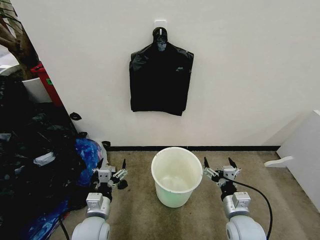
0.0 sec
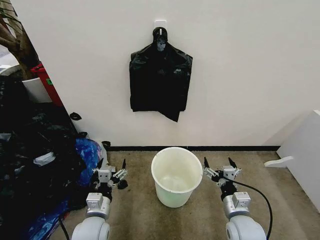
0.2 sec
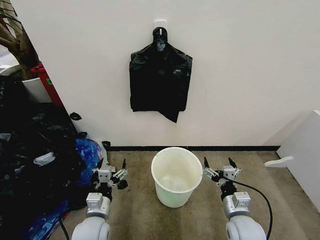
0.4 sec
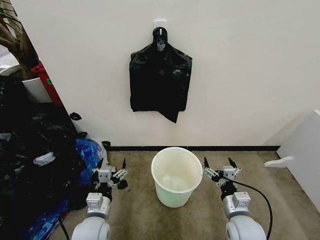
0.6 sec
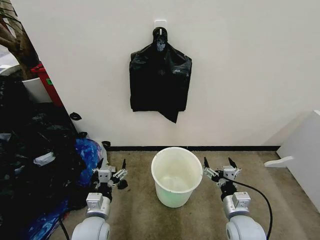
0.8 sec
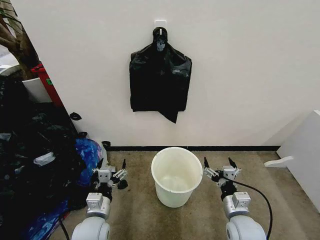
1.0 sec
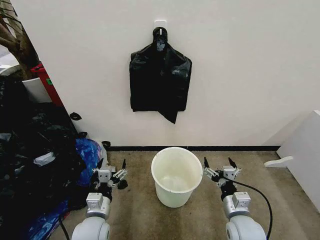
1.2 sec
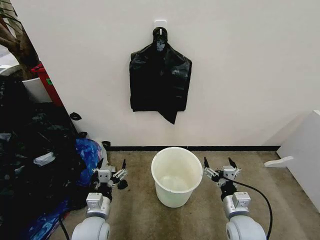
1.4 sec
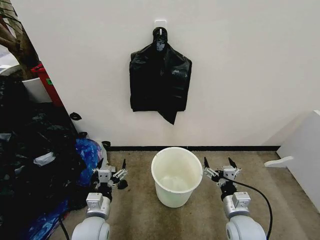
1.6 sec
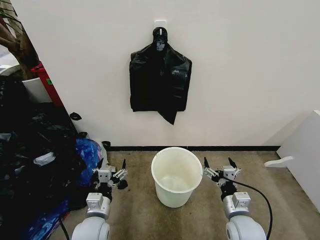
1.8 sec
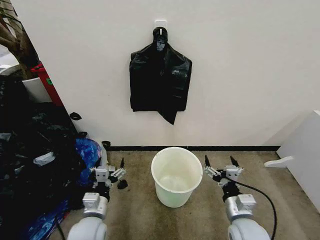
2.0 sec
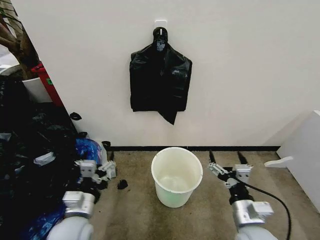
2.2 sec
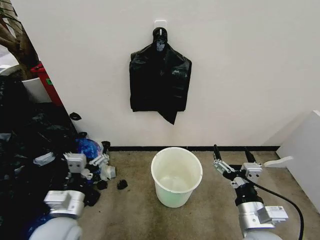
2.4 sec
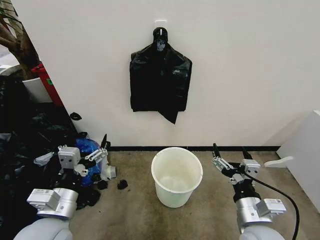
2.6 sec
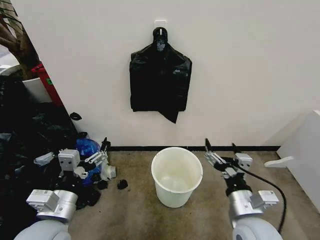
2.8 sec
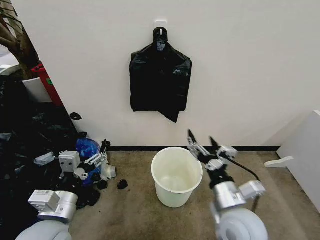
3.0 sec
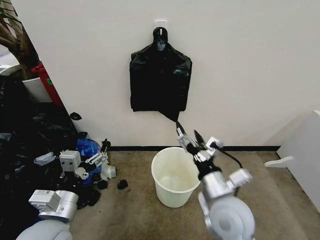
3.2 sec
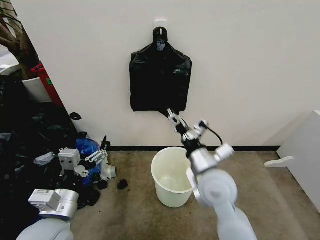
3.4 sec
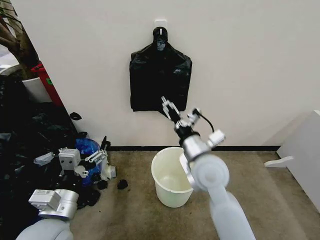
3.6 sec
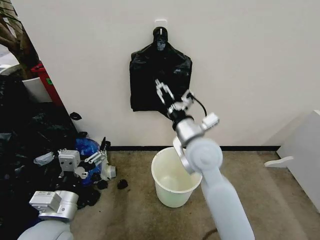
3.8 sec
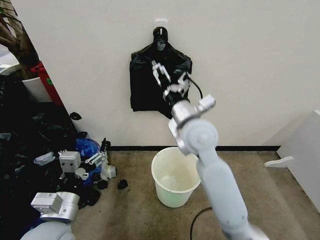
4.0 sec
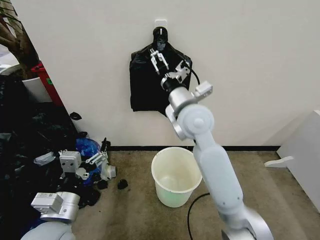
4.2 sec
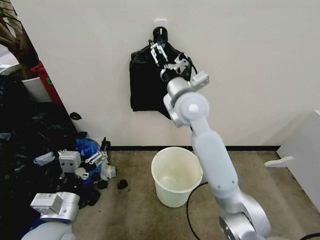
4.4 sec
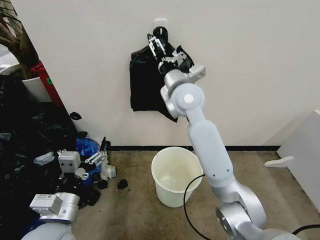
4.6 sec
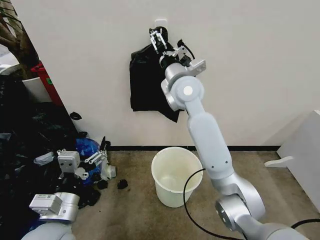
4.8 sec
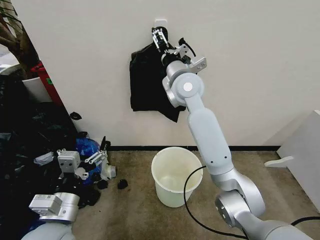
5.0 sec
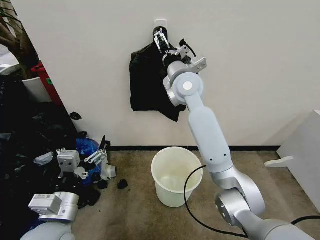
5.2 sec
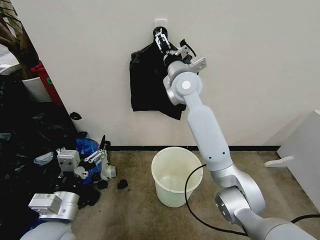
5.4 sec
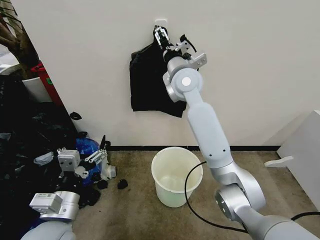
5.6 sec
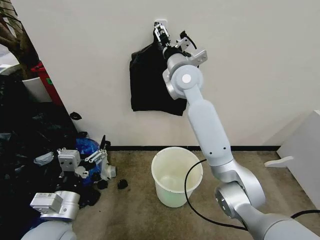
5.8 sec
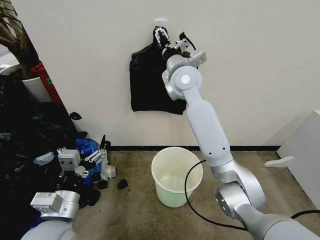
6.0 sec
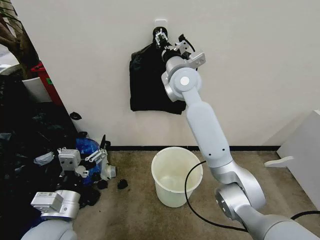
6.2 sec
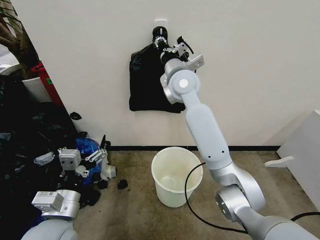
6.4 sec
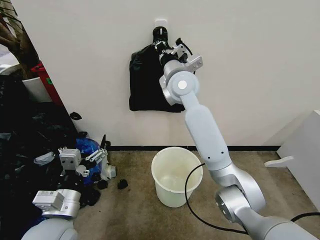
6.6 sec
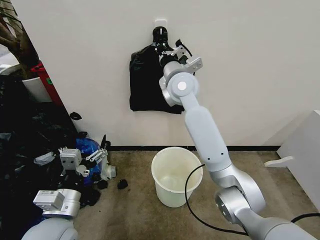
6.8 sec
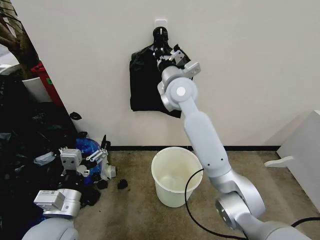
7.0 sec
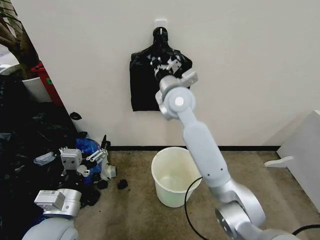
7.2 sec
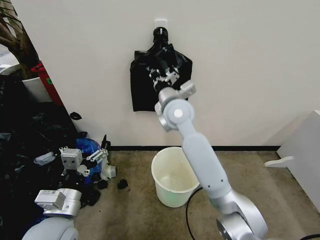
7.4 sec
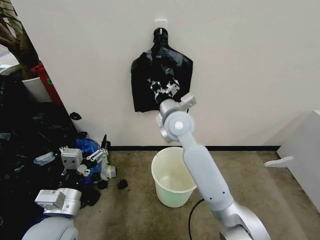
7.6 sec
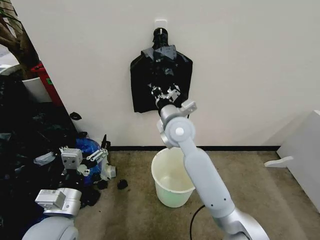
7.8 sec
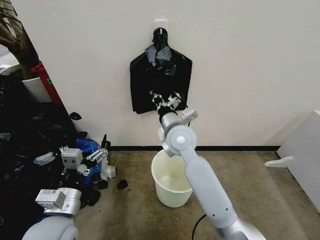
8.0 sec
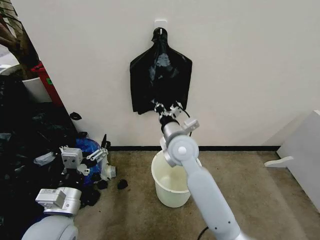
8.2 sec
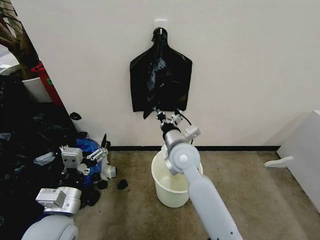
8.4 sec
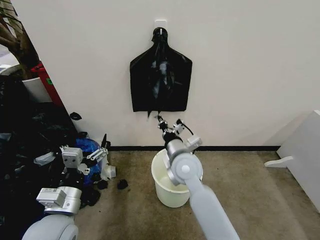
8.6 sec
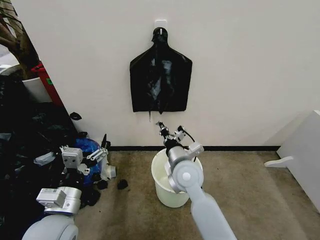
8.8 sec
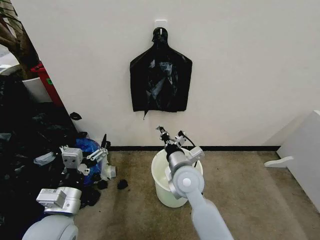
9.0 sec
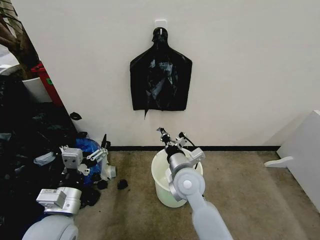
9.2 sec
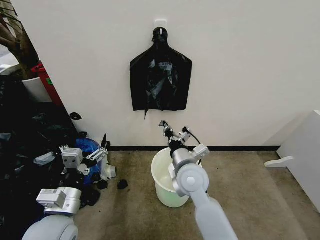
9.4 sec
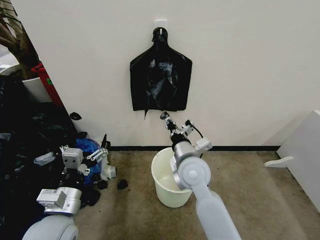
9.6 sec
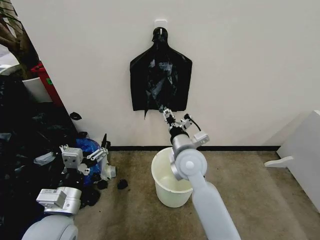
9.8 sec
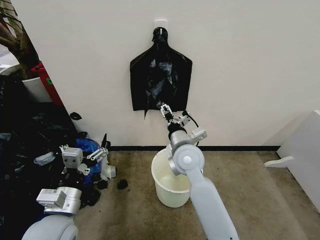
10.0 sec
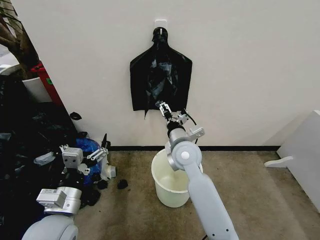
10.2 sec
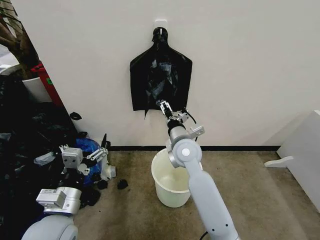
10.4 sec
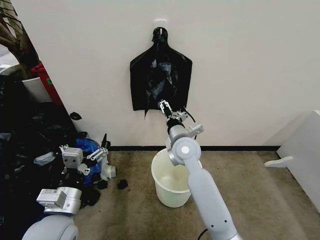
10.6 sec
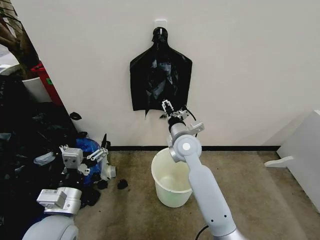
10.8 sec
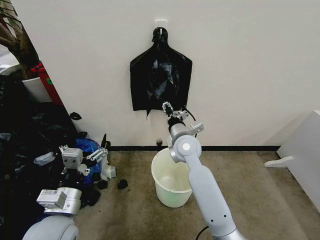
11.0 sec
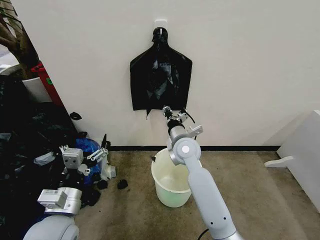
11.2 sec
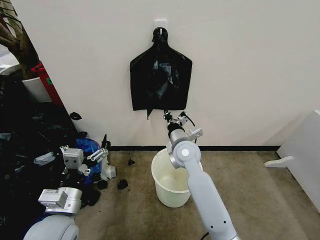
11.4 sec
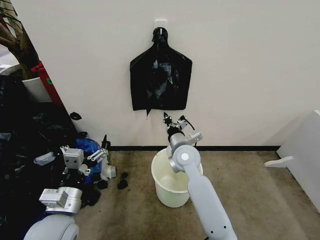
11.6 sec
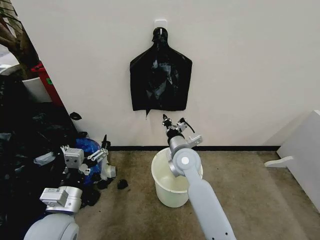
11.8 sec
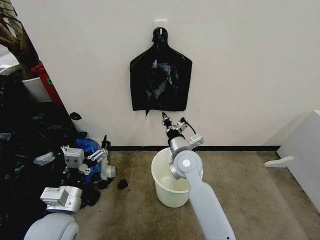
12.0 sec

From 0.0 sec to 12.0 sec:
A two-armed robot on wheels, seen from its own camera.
Task of the whole recording: Place the garbage bag over the trash bin.
From 1.6 sec to 3.0 sec: The right gripper goes about 15 cm upward and to the left; the left gripper is displaced upward by about 15 cm.
From 3.0 sec to 4.4 sec: The right gripper moves forward, upward and to the left, roughly 30 cm.
From 4.4 sec to 6.0 sec: The right gripper is displaced forward by approximately 10 cm.
From 6.0 sec to 7.6 sec: The right gripper moves downward and backward, some 15 cm, and closes its fingers.
From 7.6 sec to 9.0 sec: The right gripper is displaced downward and backward by approximately 15 cm.
From 9.0 sec to 10.4 sec: The right gripper heads forward, covering roughly 10 cm, and opens up.
From 10.4 sec to 12.0 sec: The right gripper closes up.

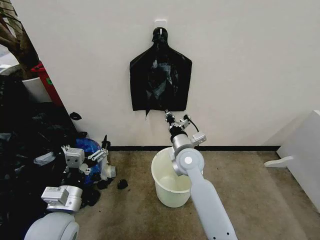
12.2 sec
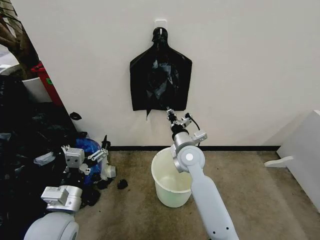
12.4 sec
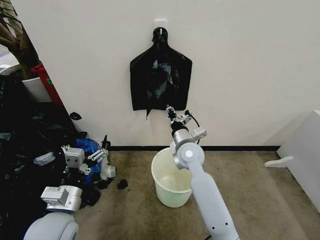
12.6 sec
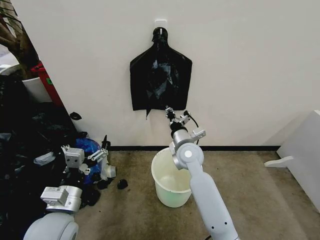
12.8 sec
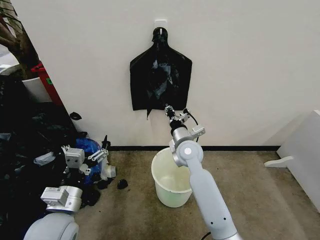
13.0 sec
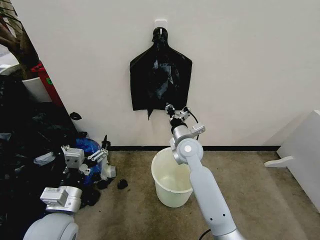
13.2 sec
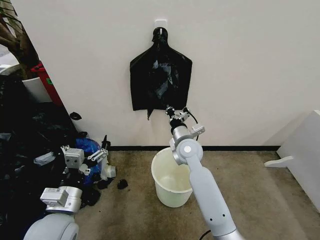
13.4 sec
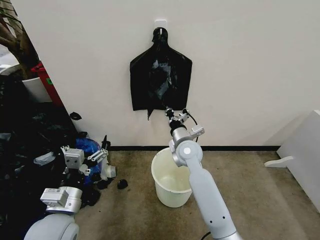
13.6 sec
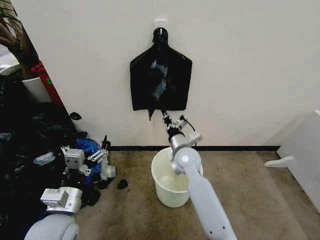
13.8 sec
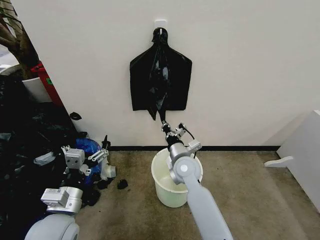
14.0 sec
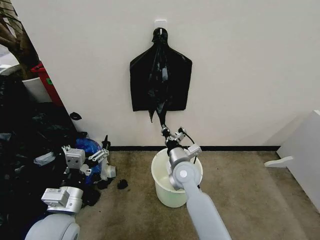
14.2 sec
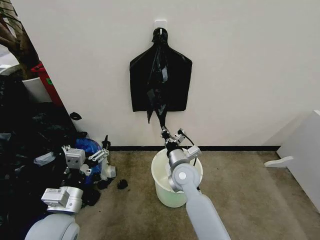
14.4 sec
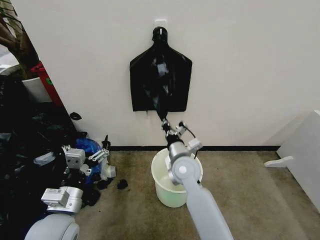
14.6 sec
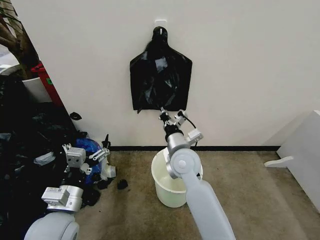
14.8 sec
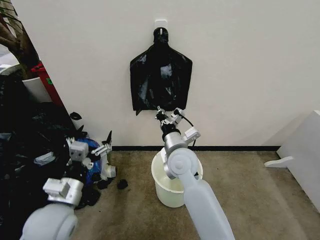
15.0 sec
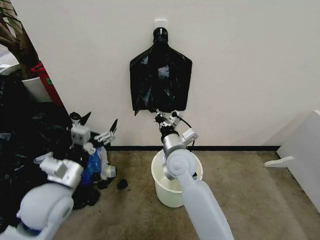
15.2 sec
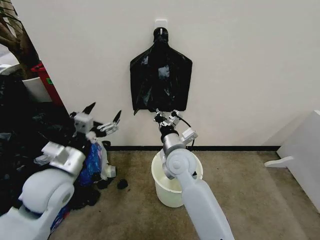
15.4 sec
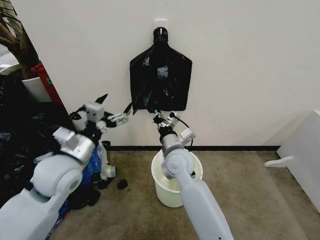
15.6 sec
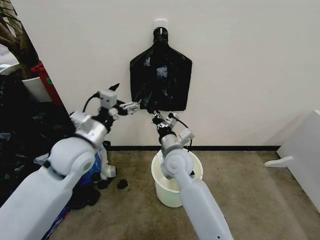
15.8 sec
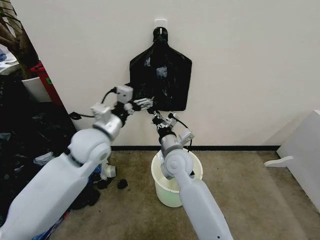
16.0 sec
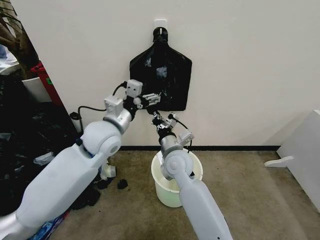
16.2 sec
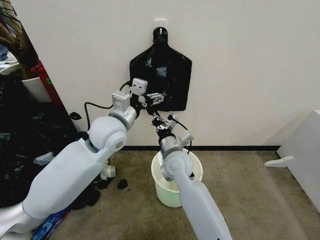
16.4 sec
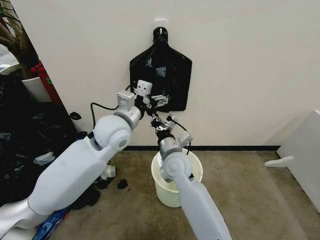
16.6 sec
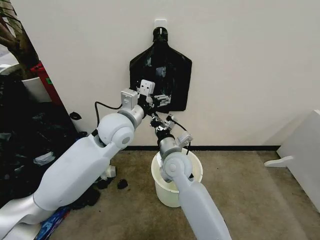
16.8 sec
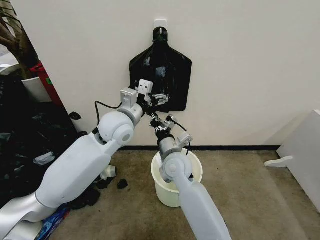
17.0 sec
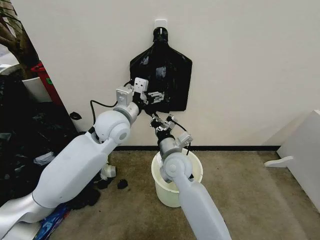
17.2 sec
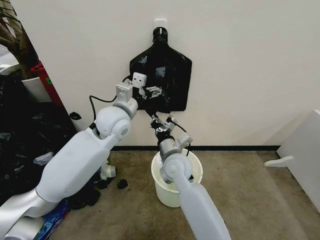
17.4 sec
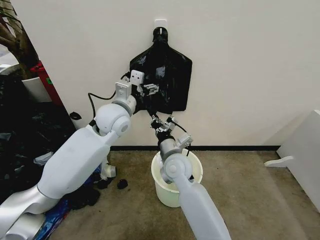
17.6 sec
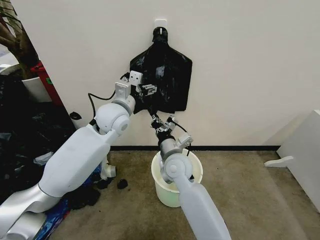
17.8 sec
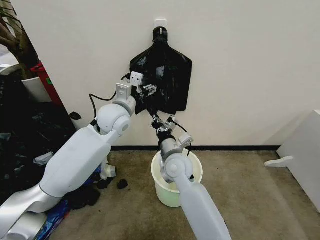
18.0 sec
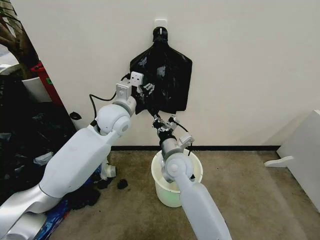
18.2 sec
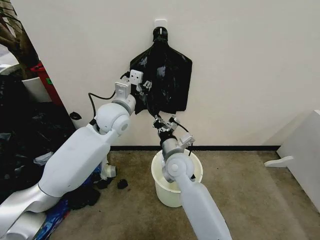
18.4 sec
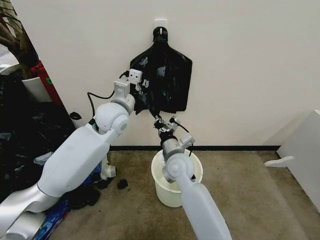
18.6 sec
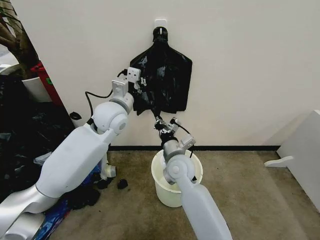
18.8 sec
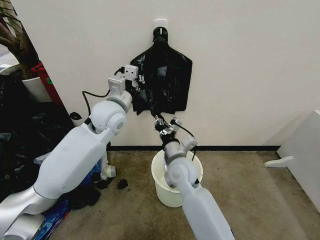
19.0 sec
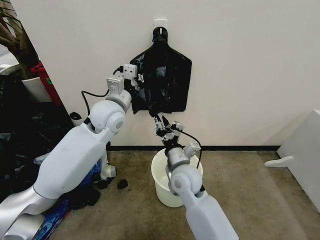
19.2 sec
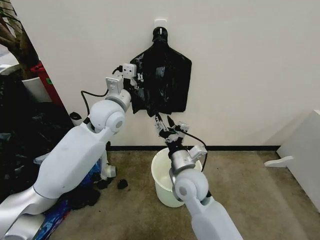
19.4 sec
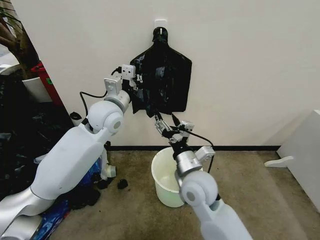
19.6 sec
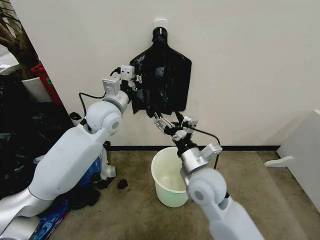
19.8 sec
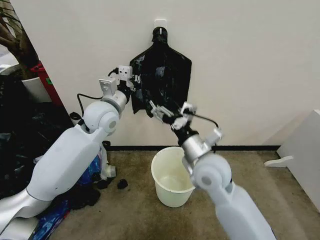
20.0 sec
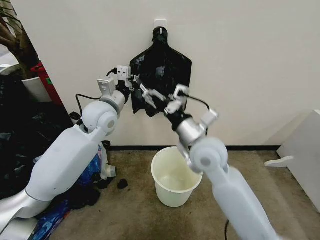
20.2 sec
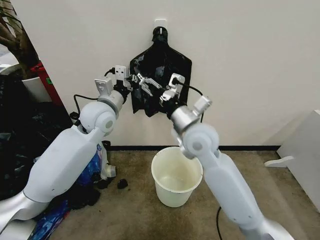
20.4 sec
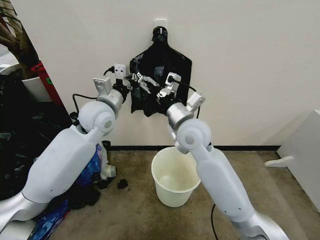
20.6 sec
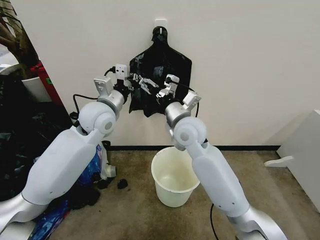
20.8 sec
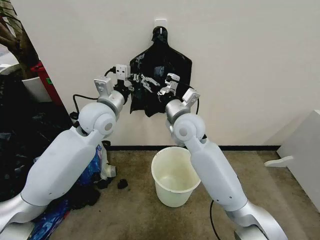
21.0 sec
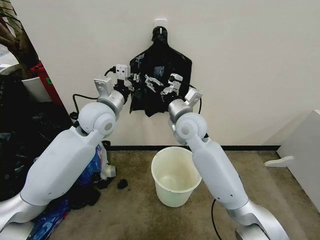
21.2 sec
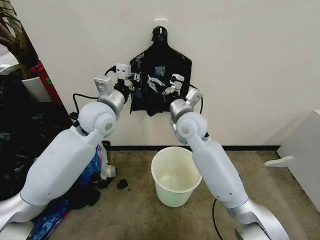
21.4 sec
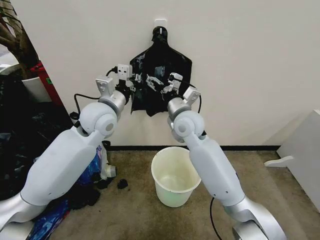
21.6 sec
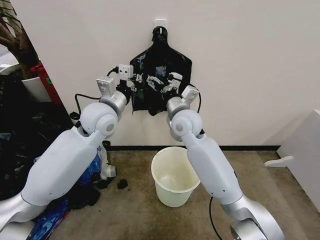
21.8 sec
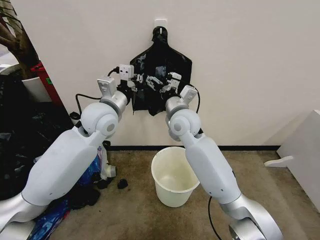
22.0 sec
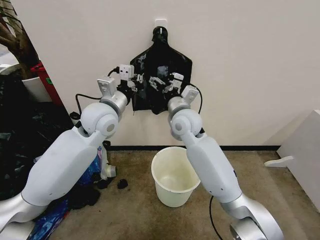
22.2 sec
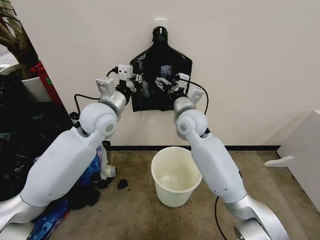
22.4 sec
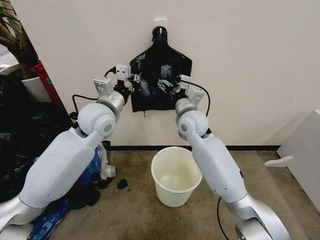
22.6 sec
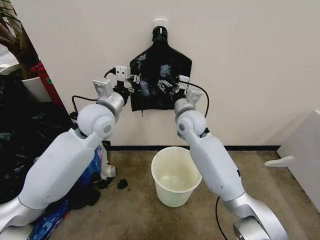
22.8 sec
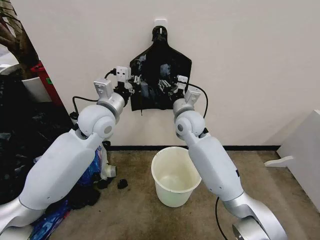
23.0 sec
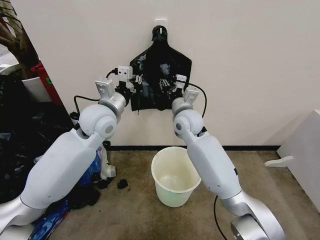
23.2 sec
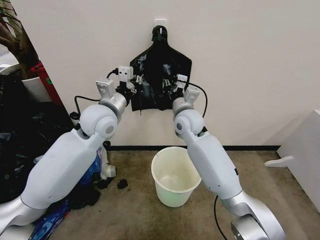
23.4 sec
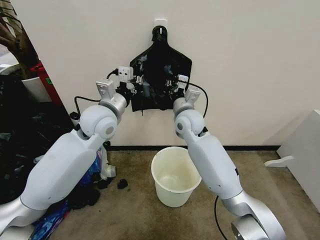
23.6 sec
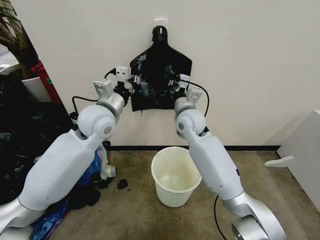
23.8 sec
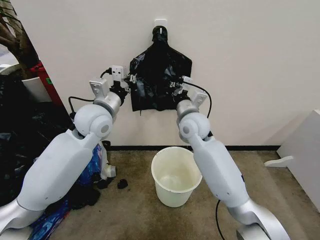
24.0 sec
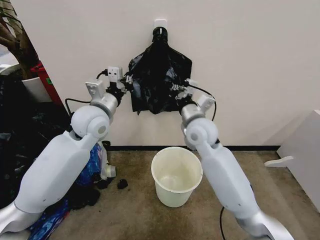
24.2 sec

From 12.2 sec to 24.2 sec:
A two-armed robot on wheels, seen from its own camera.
Task of the whole recording: Place the garbage bag over the trash bin.
From 12.2 sec to 13.8 sec: The grippers move only a little.
From 13.8 sec to 15.2 sec: The left gripper travels forward by roughly 5 cm; the right gripper ends up about 5 cm from where it was.
From 15.2 sec to 16.6 sec: The left gripper is displaced forward, to the right and upward by about 20 cm.
From 16.6 sec to 18.2 sec: The left gripper travels forward by approximately 5 cm, and closes its fingers.
From 18.2 sec to 19.8 sec: The right gripper moves backward and to the right, some 10 cm, and opens up. Meanwhile the left gripper closes up.
From 19.8 sec to 21.2 sec: The right gripper moves forward and upward, approximately 15 cm.
From 21.2 sec to 22.6 sec: The grippers move only a little.
From 22.6 sec to 24.2 sec: The right gripper closes its fingers.
